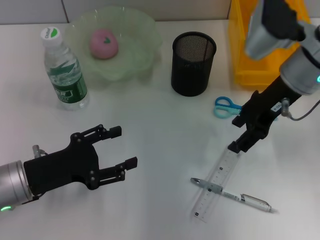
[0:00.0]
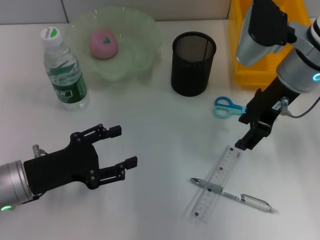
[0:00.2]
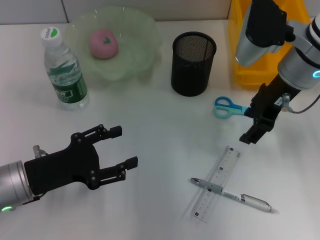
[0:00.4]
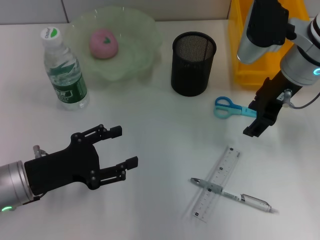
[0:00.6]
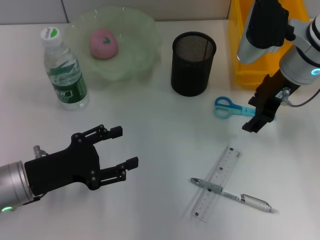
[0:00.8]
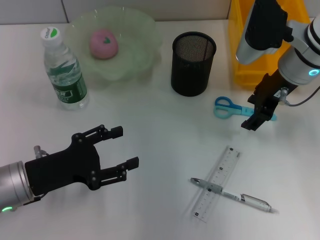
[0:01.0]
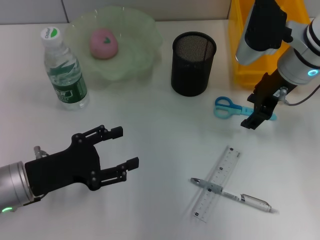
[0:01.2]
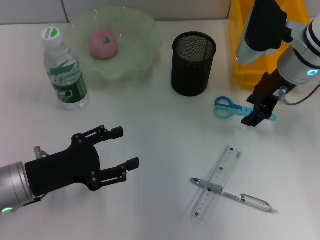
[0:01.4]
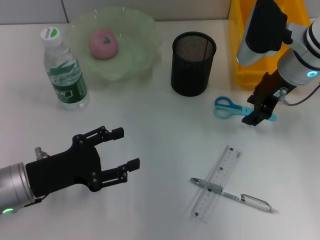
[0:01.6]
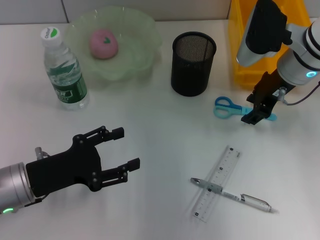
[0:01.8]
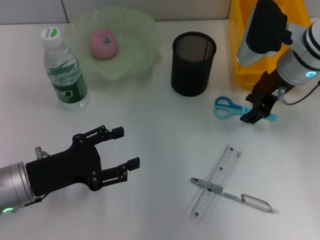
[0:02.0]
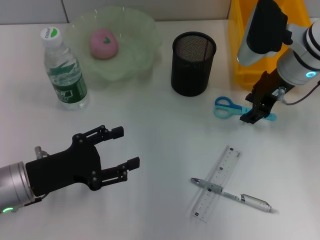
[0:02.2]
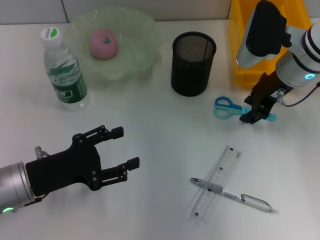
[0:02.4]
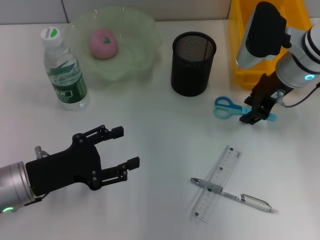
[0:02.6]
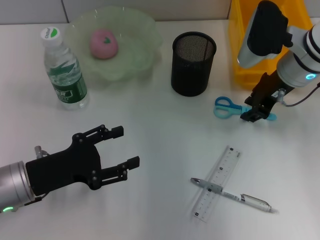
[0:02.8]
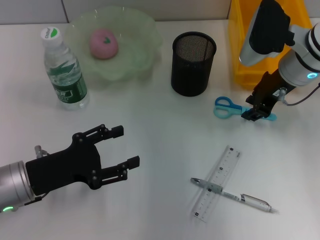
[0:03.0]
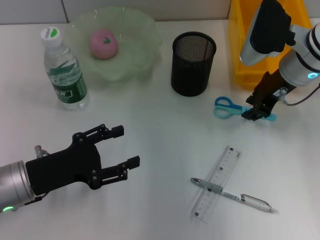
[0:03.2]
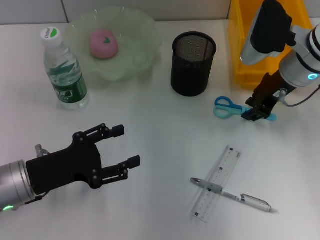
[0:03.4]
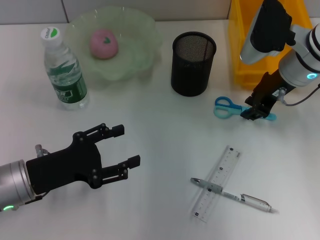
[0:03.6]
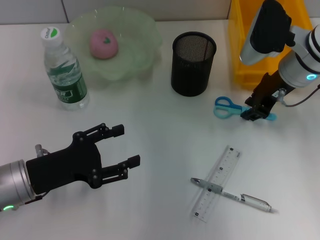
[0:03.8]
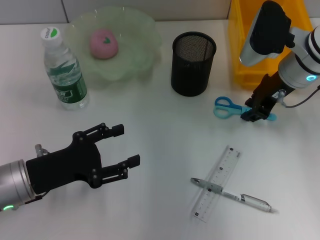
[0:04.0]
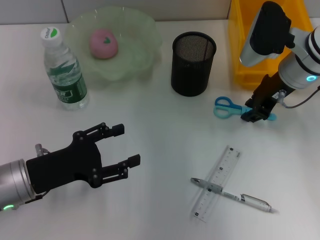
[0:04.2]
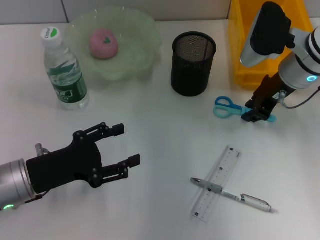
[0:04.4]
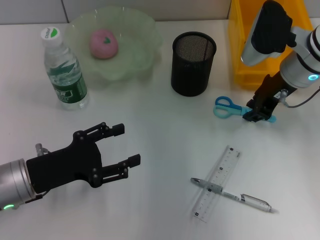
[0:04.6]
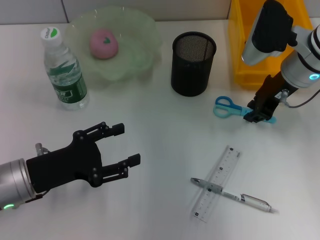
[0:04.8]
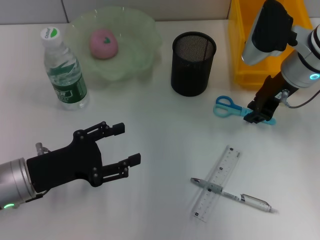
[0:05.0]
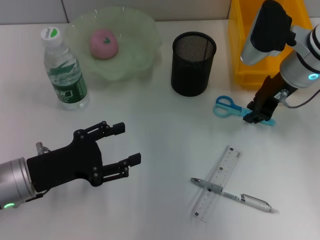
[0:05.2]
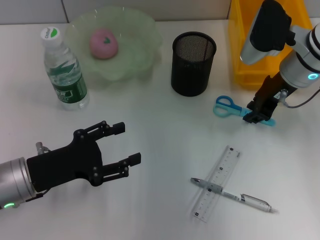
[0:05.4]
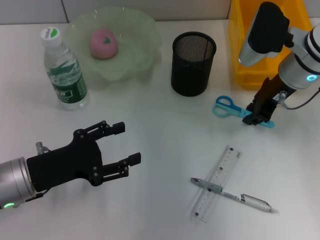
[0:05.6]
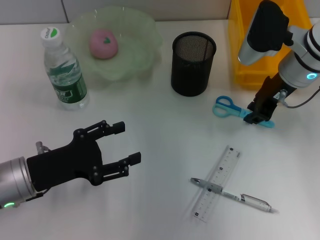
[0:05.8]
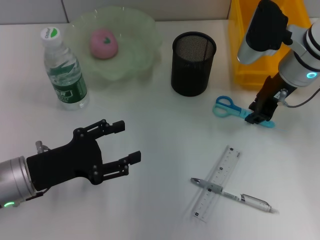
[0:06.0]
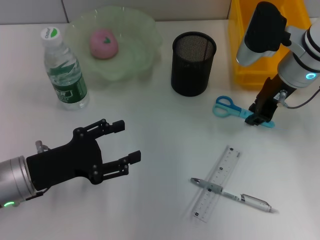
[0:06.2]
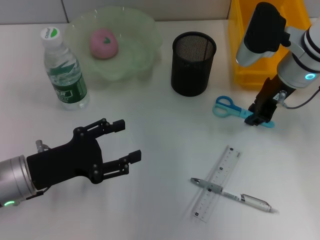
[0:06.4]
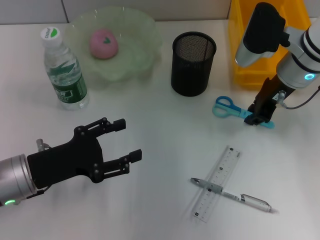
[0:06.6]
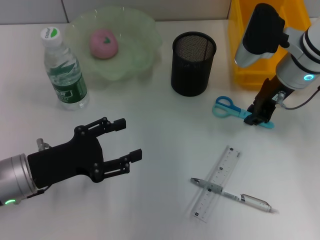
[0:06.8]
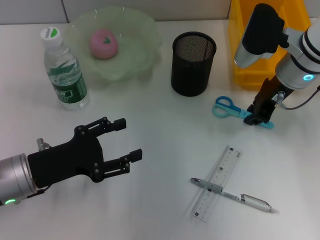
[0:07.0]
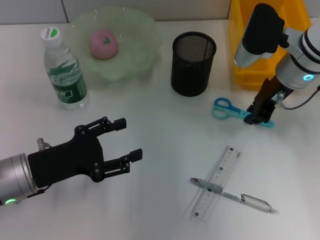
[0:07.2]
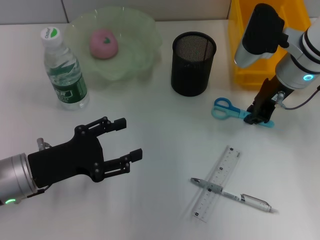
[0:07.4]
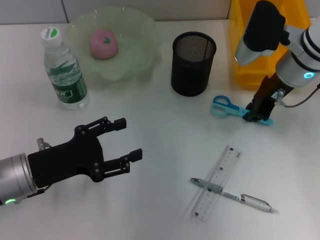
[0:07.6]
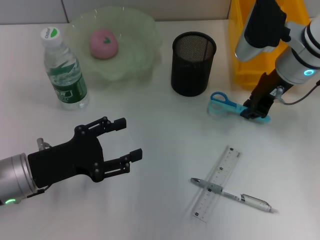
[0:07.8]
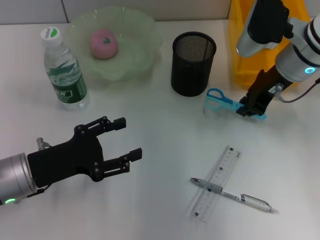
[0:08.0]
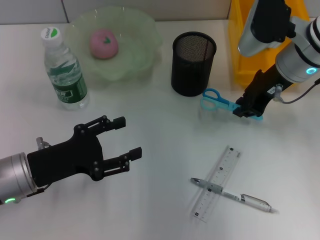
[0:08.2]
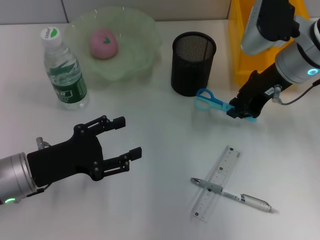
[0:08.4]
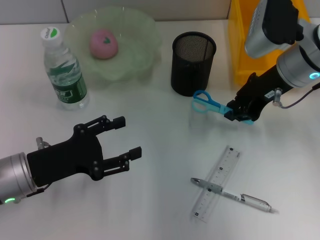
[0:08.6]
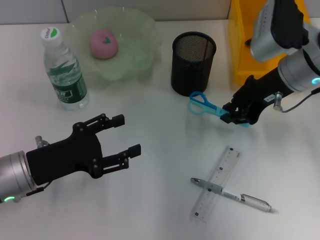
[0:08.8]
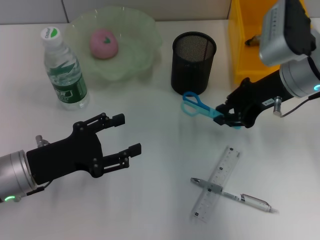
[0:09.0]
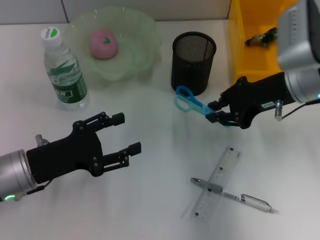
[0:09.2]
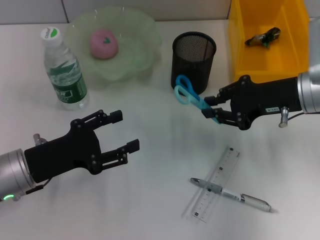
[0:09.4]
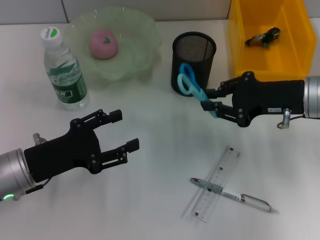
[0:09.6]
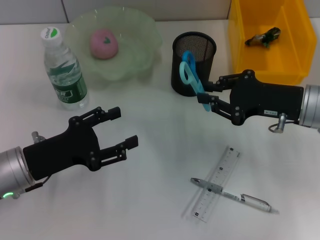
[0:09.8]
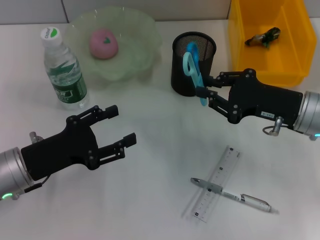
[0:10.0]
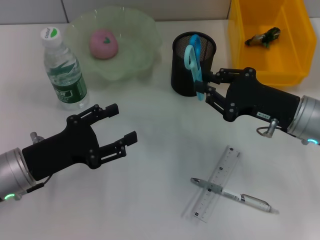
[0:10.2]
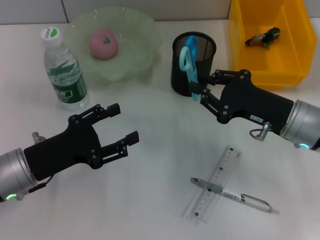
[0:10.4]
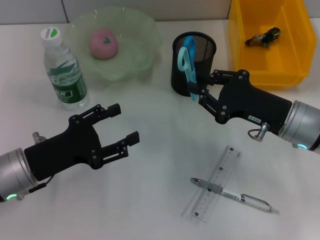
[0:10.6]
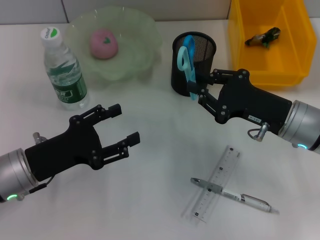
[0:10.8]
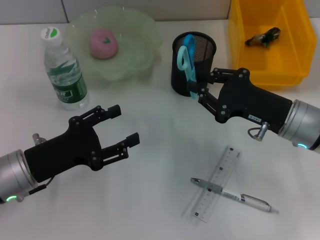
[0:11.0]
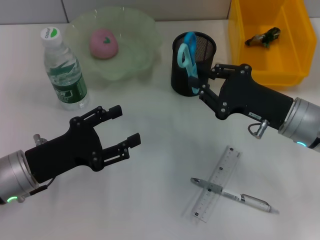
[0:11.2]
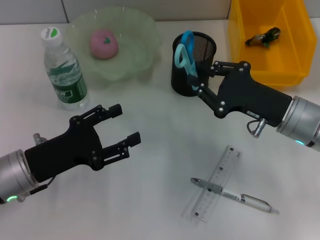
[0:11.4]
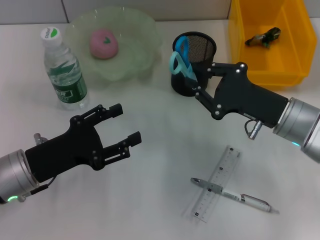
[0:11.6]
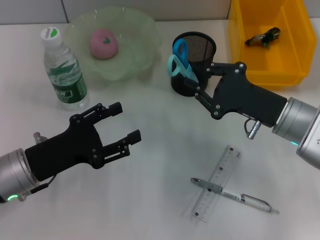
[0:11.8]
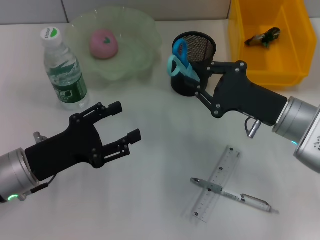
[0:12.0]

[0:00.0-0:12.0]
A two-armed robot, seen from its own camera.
Step, 0:00.0 to 0:07.4: Grab the blue scissors with the right hand.
0:00.0 to 0:01.6: The grippers stay close to where they were, moving slightly.
0:01.6 to 0:03.0: Both grippers stay put.
0:03.0 to 0:06.0: The two grippers keep their place.
0:06.0 to 0:07.6: Both grippers stay about where they are.
0:09.0 to 0:10.4: The right gripper shifts approximately 10 cm downward and backward.

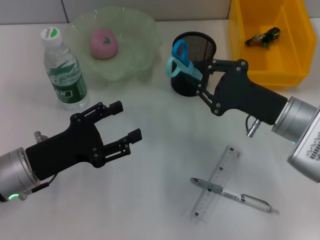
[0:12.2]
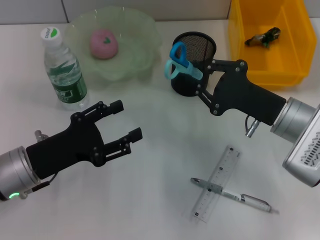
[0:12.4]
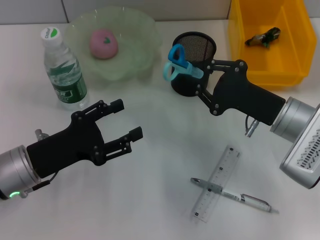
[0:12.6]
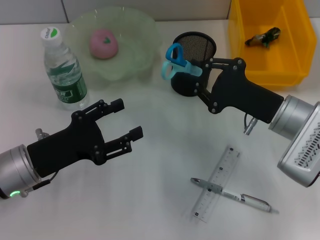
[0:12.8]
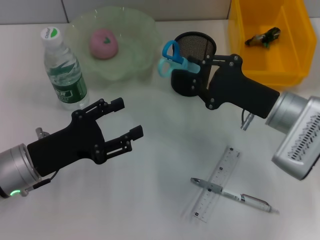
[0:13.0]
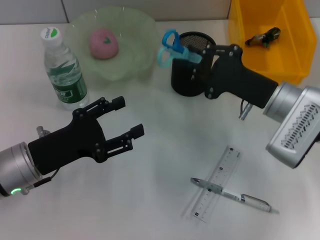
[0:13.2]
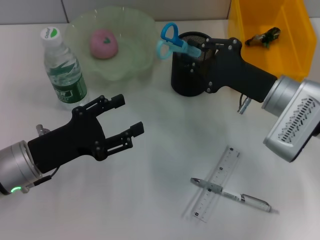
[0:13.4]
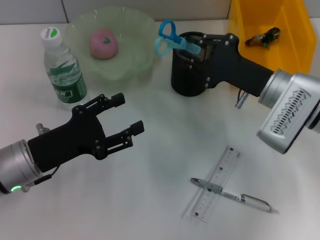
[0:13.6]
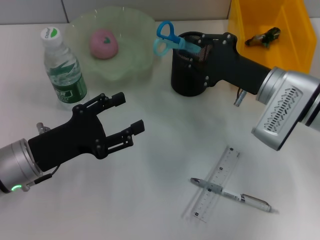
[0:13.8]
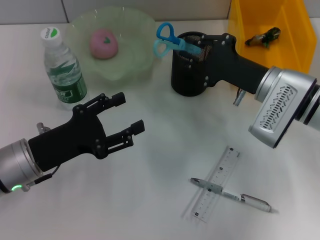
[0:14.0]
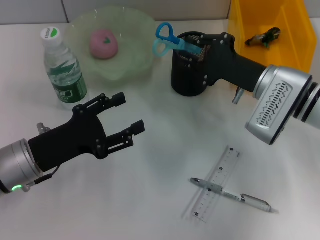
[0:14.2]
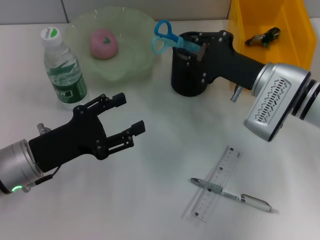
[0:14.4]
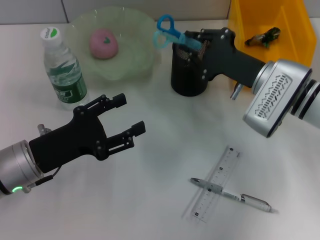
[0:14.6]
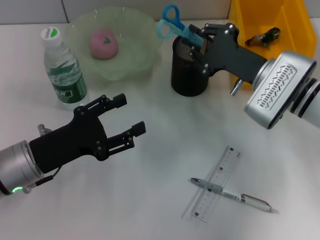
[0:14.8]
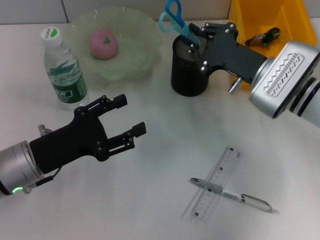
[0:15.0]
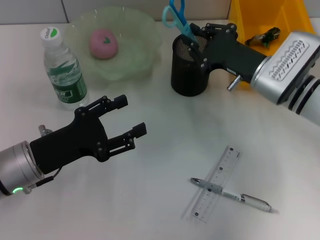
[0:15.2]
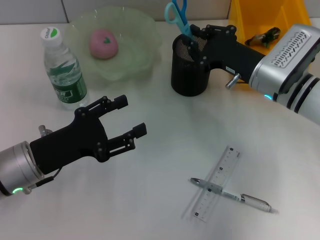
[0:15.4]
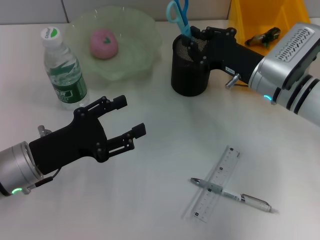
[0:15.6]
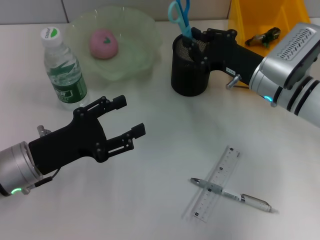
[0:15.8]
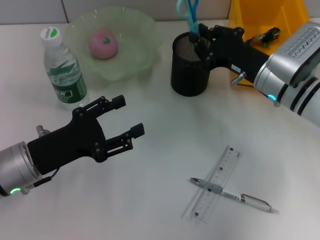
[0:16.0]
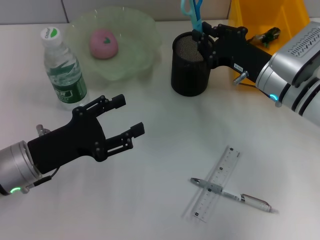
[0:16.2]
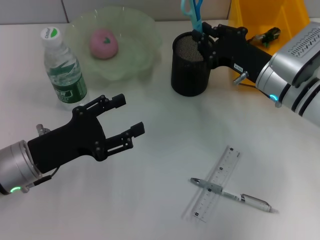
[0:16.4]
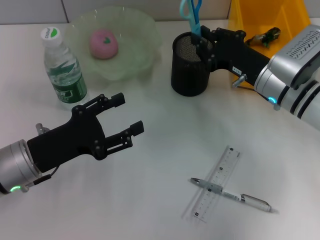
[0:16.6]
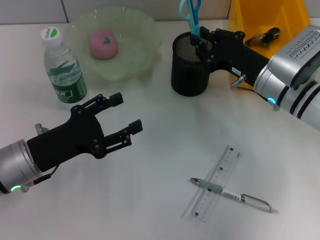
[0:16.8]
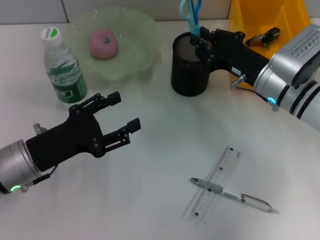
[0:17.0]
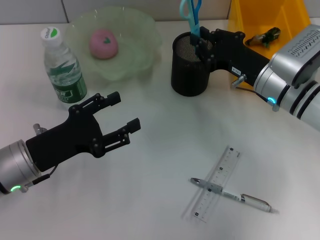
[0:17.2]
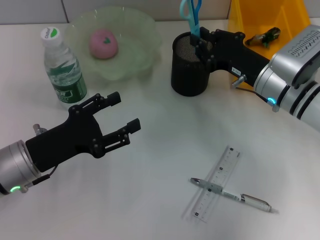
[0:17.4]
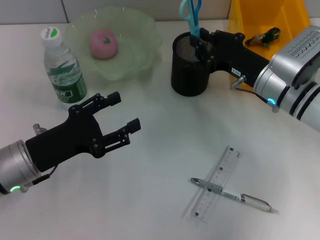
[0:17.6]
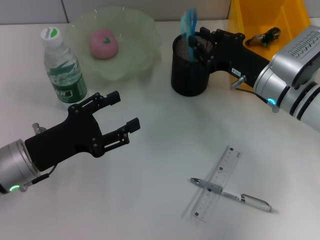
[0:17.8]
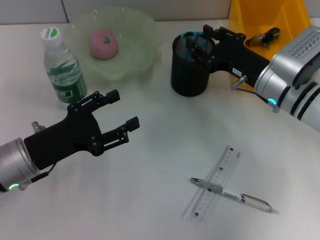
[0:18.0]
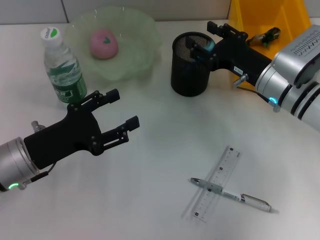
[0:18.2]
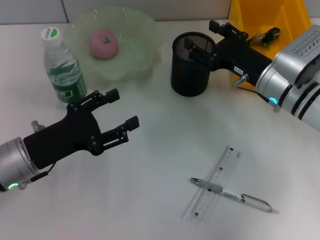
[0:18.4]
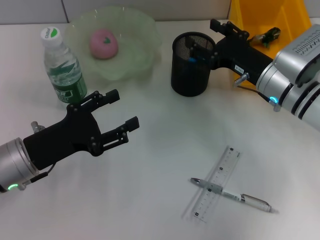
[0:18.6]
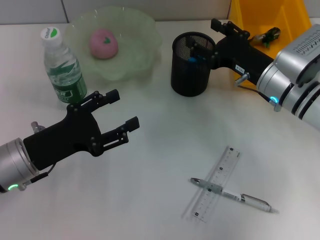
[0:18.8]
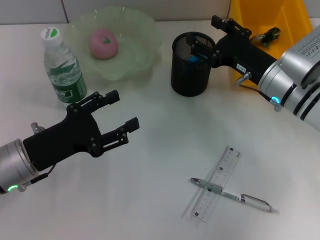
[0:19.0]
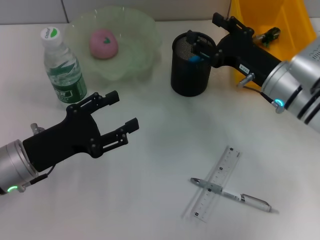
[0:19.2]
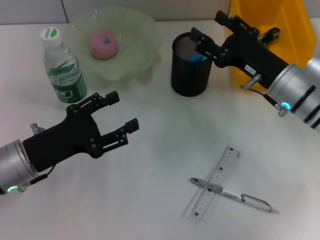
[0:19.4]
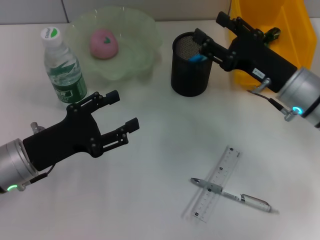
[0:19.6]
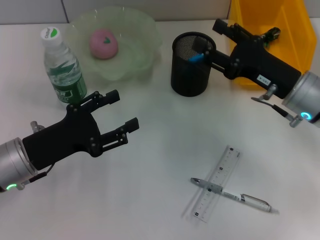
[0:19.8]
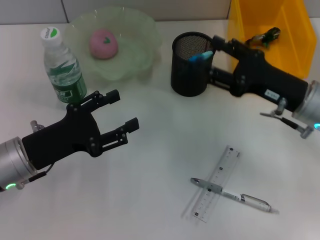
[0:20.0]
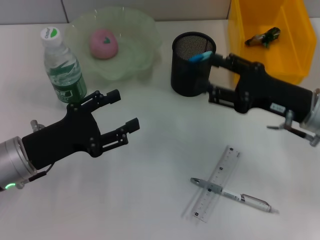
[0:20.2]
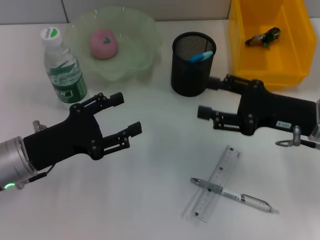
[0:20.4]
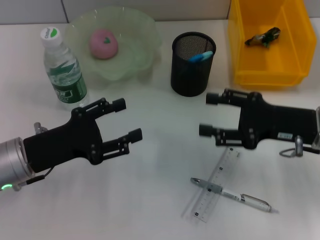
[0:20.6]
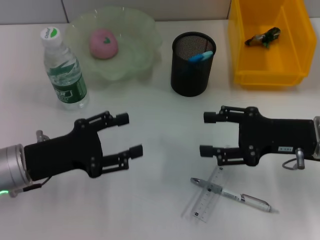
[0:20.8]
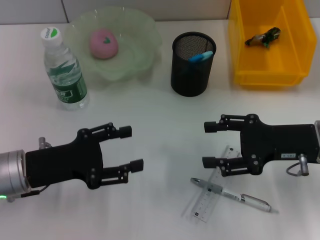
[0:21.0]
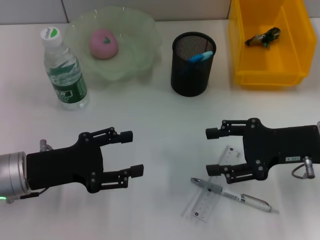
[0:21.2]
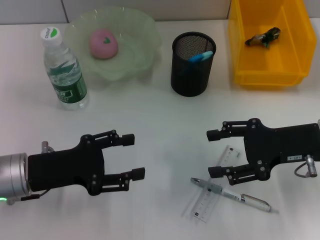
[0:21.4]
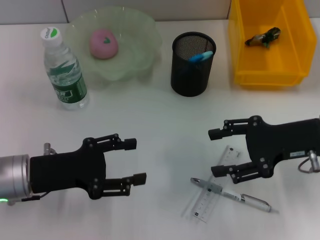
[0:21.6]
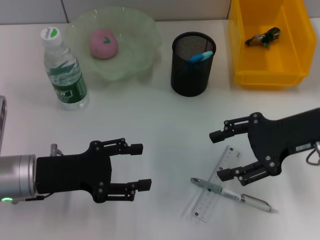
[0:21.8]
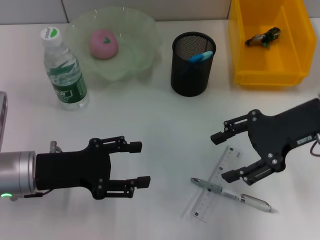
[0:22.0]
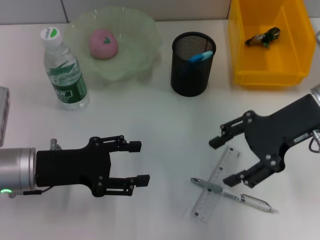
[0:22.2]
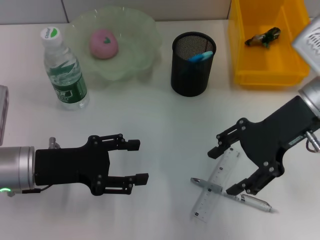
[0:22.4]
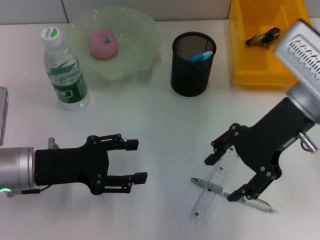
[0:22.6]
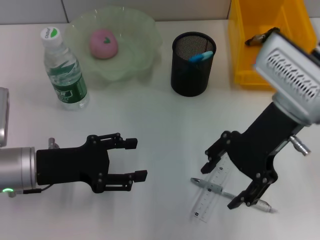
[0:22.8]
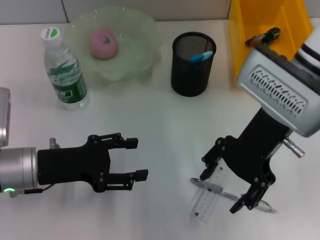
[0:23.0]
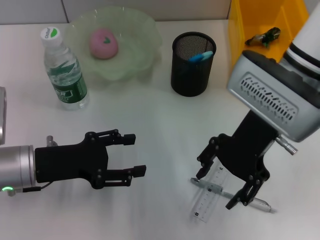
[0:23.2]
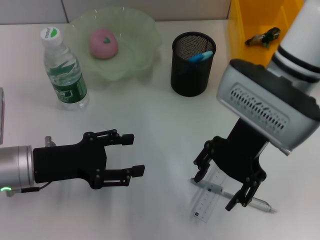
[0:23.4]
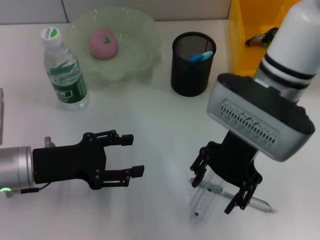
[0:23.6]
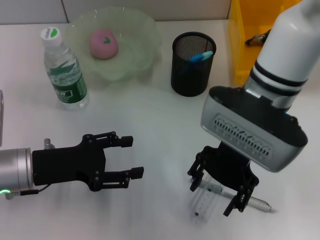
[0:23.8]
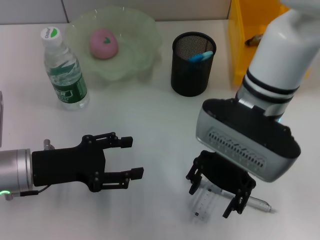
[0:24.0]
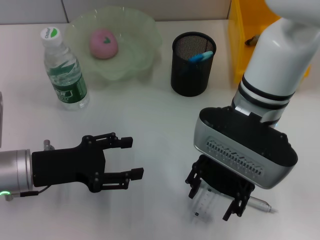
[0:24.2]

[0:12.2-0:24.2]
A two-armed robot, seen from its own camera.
Step, 0:12.2 to 0:18.2: Place the blue scissors into the pen holder with the right hand.
0:12.2 to 0:13.8: The right gripper ends up some 5 cm from where it was.
0:15.2 to 0:16.6: There are only small adjustments of the grippers.
0:16.6 to 0:18.2: The right gripper opens.
0:18.2 to 0:19.8: The right gripper ends up approximately 5 cm from where it was, and opens.
0:19.8 to 0:21.2: The right gripper changes place by roughly 5 cm.
0:21.2 to 0:22.6: The right gripper goes some 10 cm upward and to the left.
0:22.6 to 0:24.2: The right gripper heads to the left, covering roughly 10 cm.
